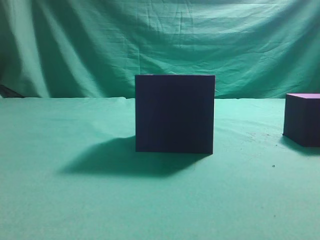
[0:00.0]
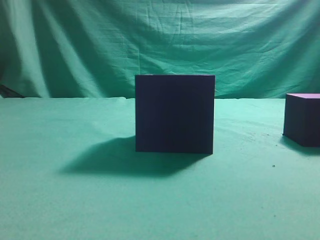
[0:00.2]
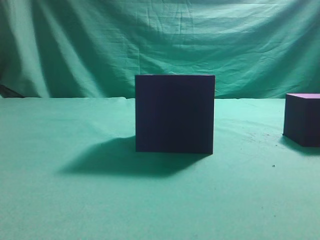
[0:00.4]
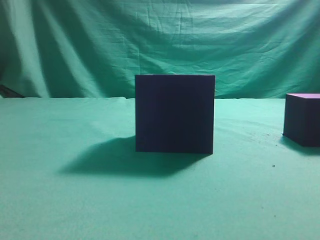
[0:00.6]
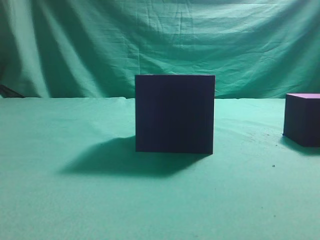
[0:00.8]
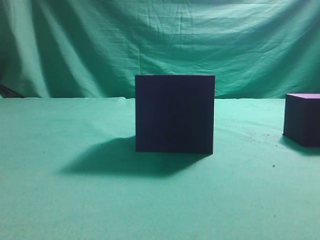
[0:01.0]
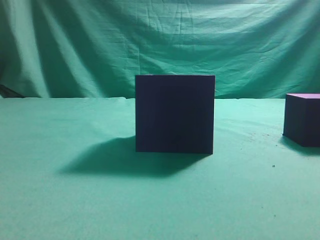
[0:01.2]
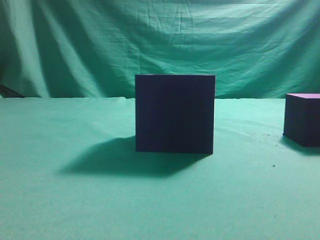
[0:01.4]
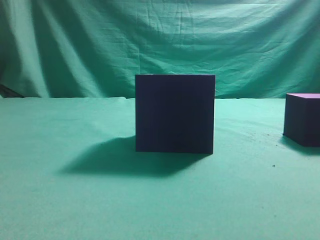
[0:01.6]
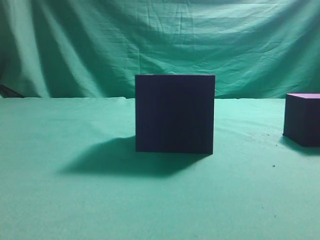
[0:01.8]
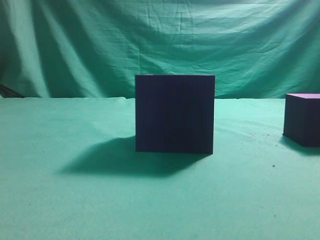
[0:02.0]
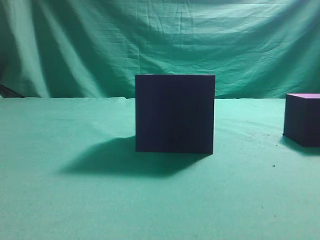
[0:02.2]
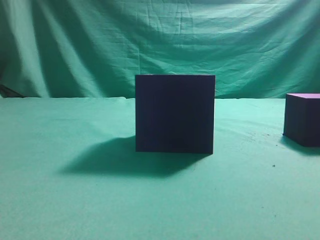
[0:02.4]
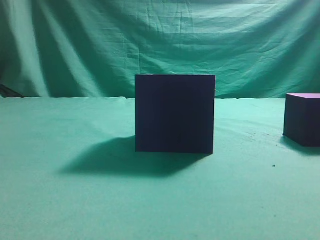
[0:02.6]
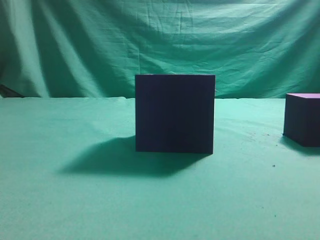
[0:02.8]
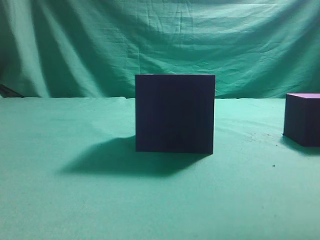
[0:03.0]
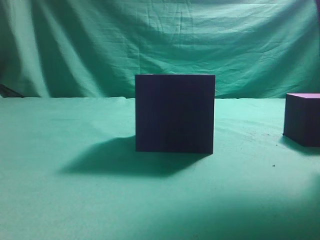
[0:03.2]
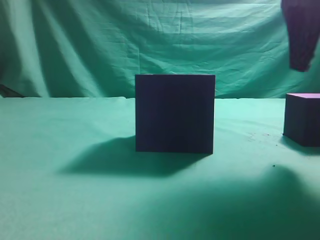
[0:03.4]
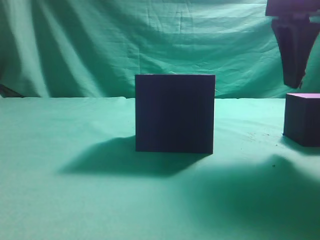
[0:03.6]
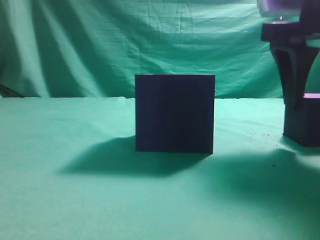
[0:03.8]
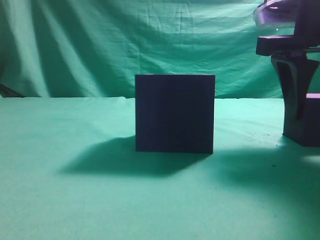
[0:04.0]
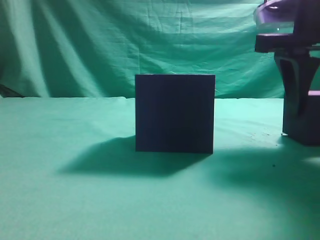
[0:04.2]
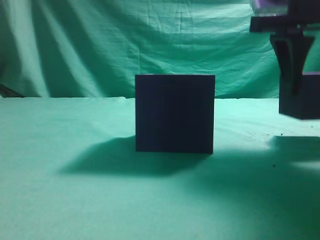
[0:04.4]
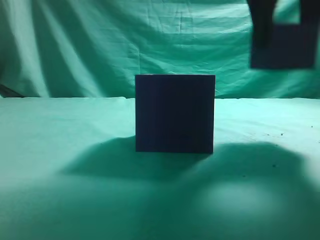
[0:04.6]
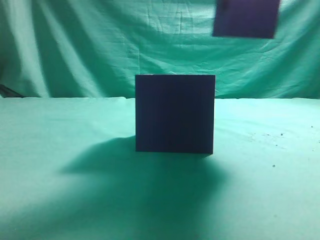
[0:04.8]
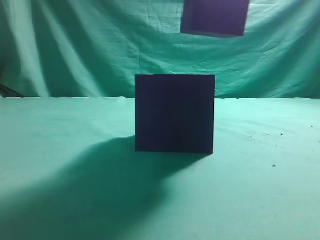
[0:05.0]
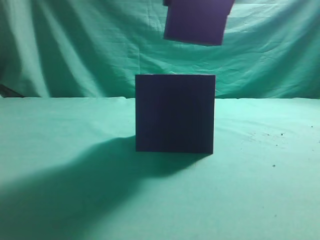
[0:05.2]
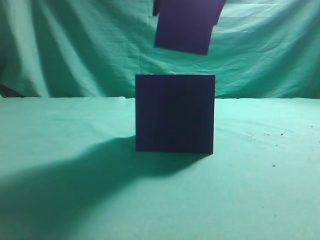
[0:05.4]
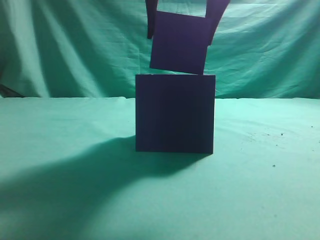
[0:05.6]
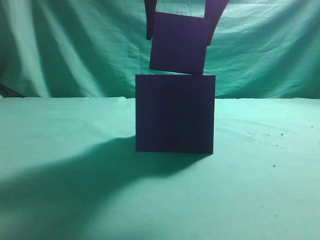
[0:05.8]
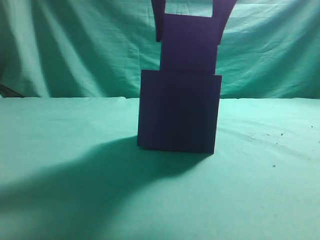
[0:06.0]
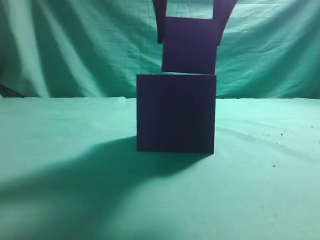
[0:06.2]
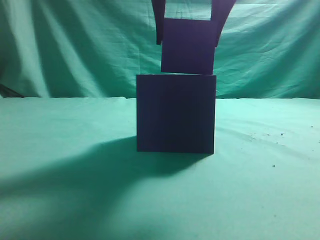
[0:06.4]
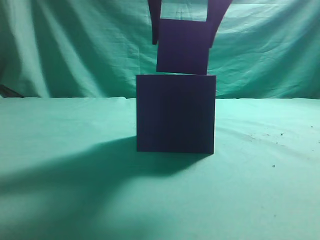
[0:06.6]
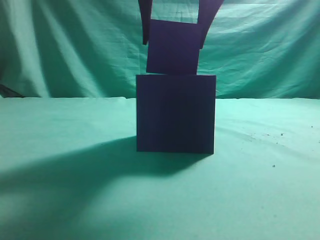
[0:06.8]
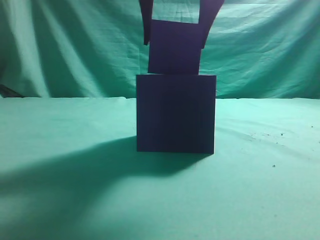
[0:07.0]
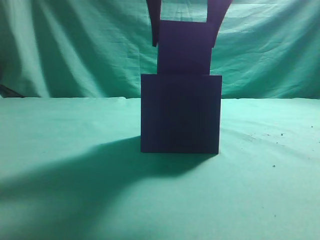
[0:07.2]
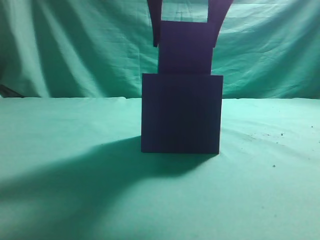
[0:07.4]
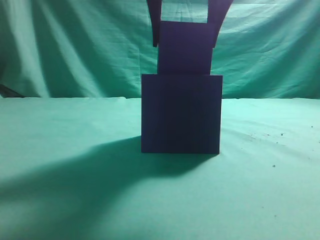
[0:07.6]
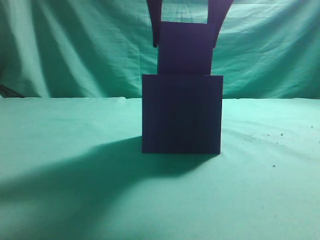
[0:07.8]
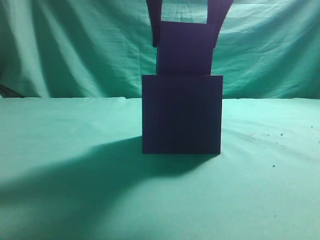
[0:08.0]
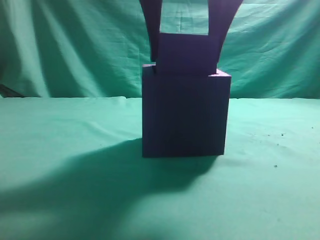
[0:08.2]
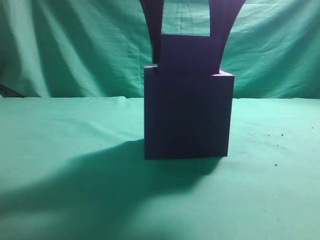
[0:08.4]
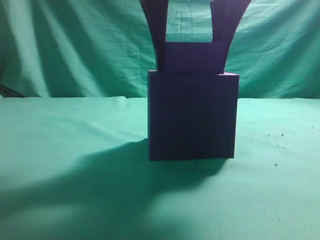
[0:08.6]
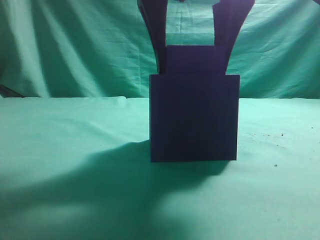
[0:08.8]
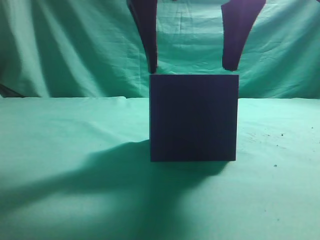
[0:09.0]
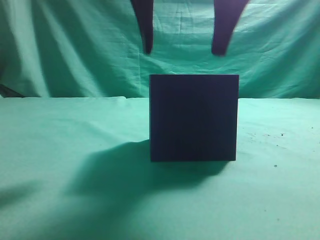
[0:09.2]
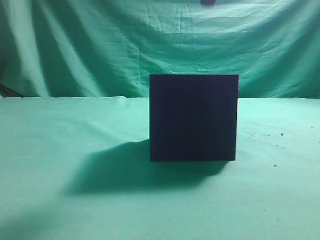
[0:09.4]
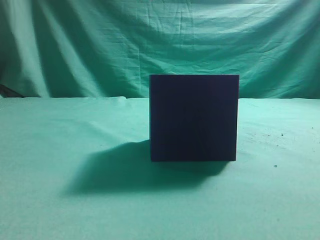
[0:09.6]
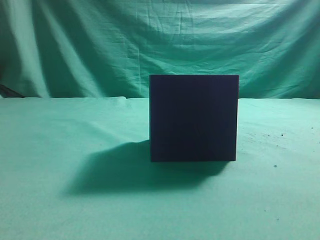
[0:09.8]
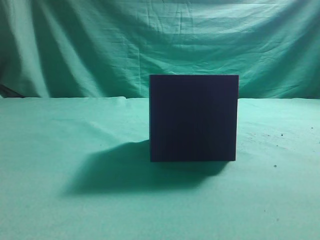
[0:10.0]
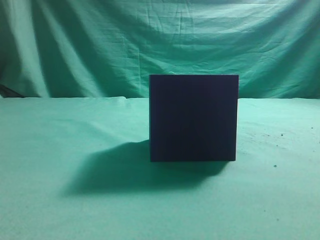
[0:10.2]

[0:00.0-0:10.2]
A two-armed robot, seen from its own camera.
Task of the whole recording: pick up the cube block and place it into the cube groove.
Step, 0:00.0 to 0:04.4: Grasp the cube.
Step, 0:04.6 to 0:09.2: Place cube into the cube-shaped recess.
0:03.0 to 0:04.4: The right gripper moves forward and downward, some 10 cm, and opens up.
0:04.4 to 0:05.8: The right gripper shifts some 15 cm to the left.
0:05.8 to 0:07.2: Both grippers stay put.
0:08.8 to 0:10.2: The right gripper is displaced upward, to the right and backward by some 25 cm, and closes up.
